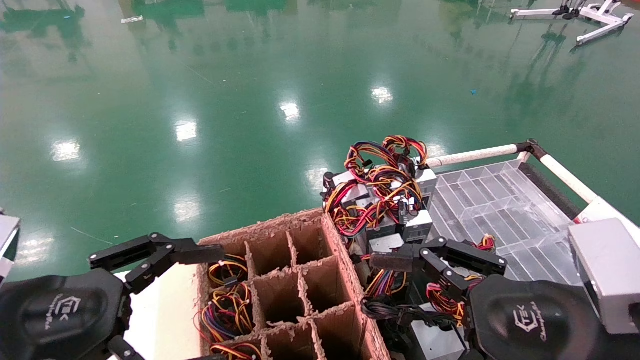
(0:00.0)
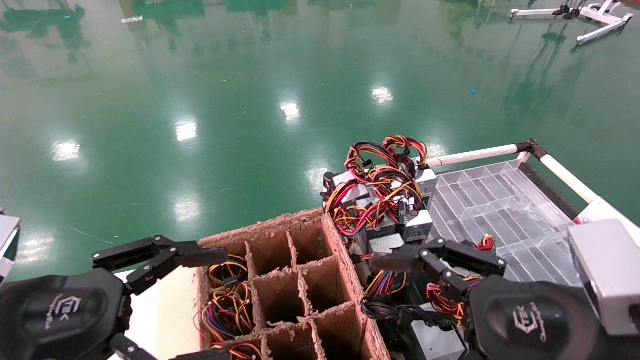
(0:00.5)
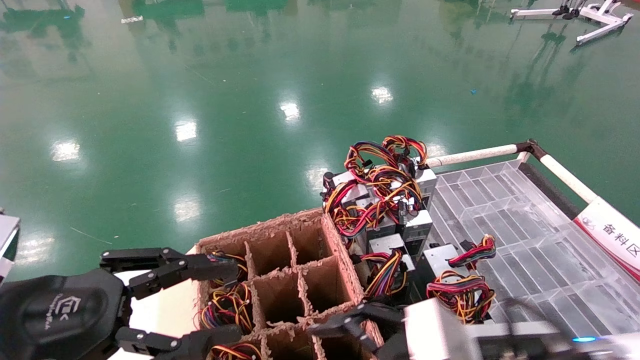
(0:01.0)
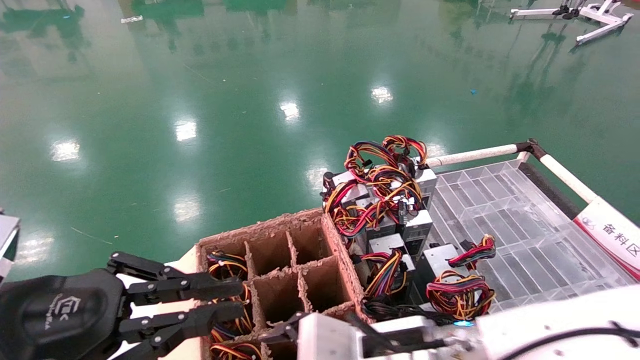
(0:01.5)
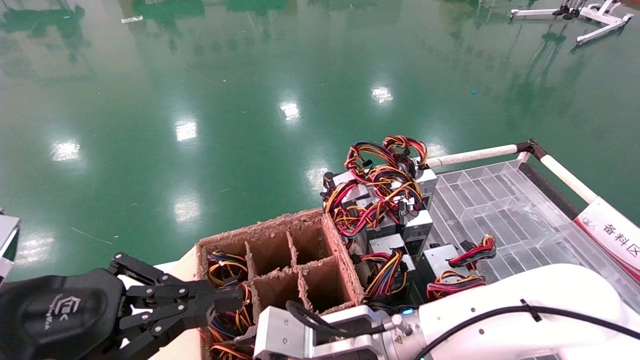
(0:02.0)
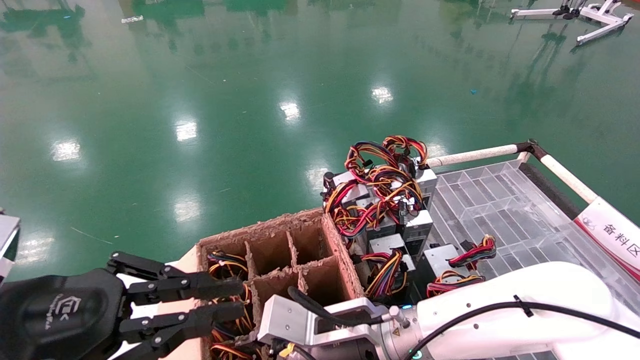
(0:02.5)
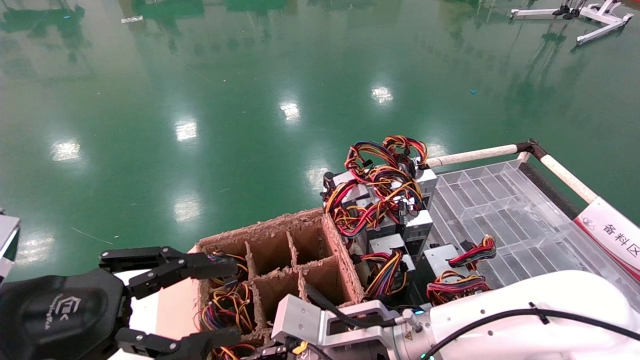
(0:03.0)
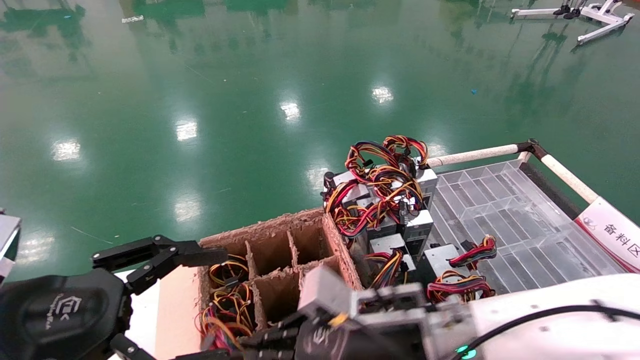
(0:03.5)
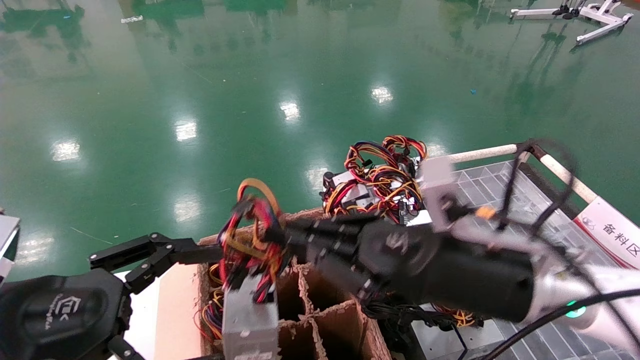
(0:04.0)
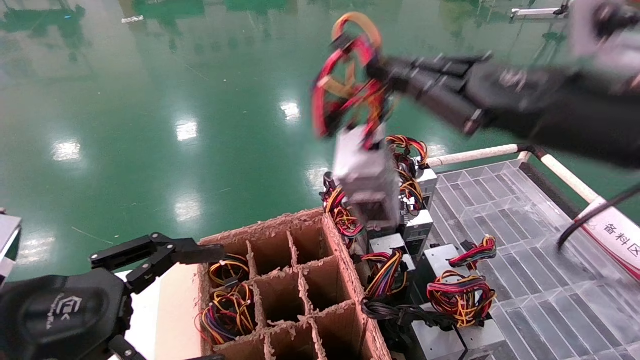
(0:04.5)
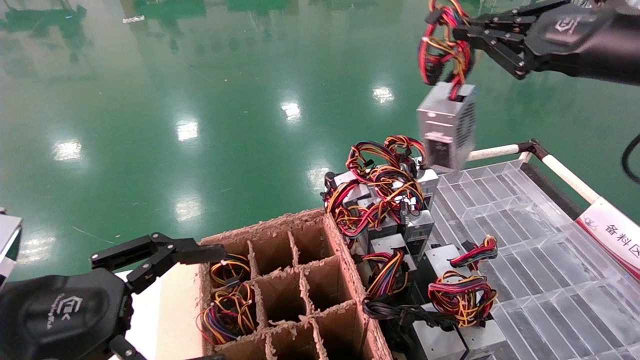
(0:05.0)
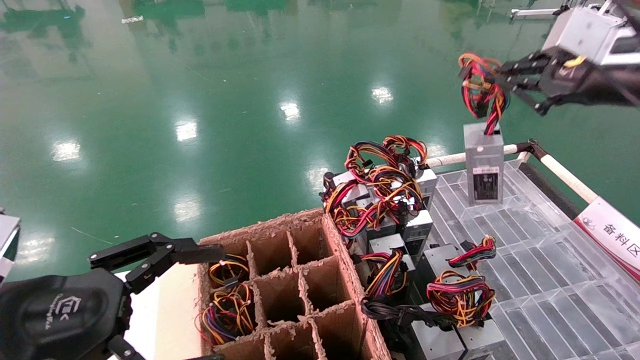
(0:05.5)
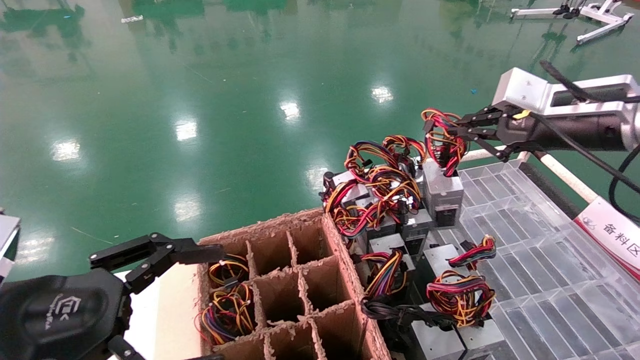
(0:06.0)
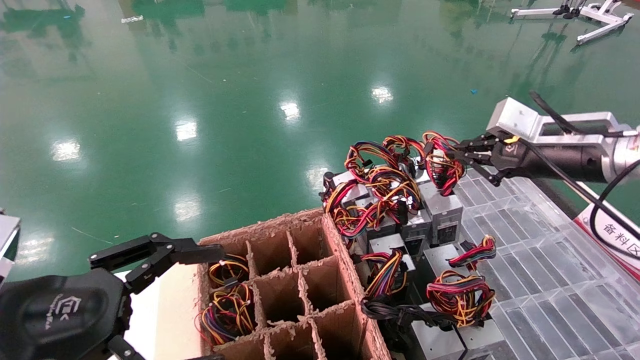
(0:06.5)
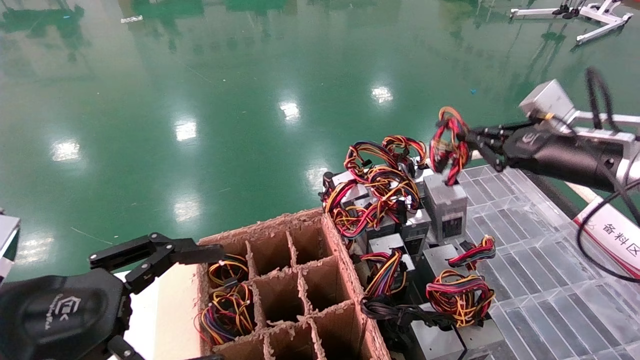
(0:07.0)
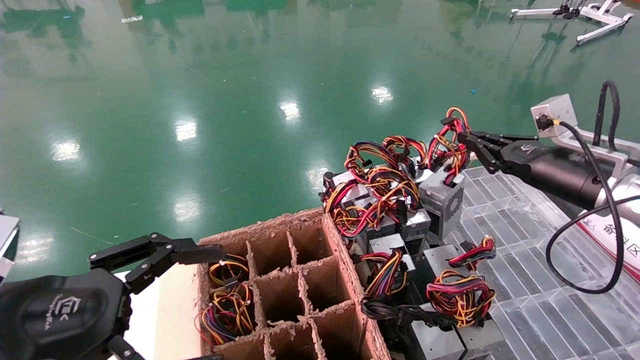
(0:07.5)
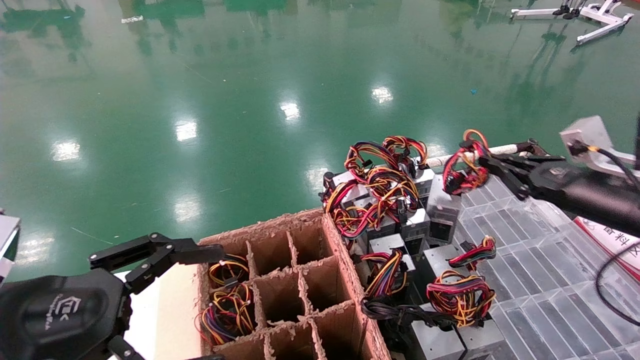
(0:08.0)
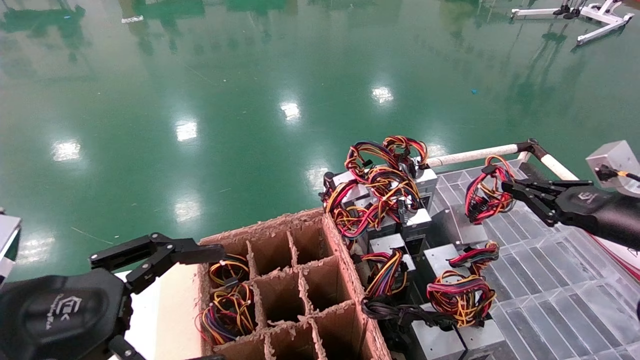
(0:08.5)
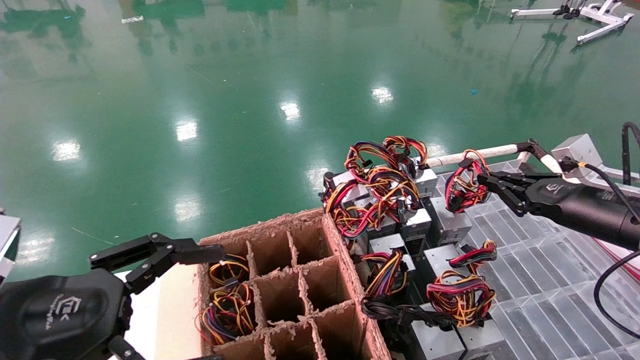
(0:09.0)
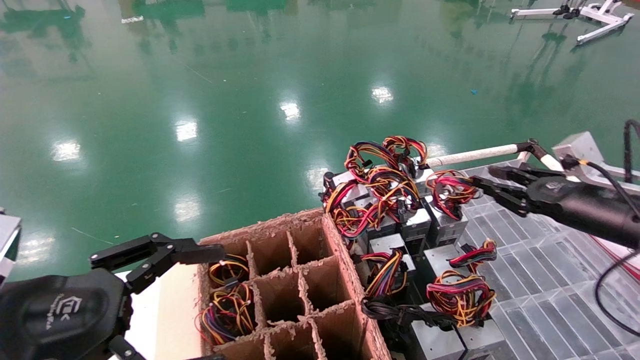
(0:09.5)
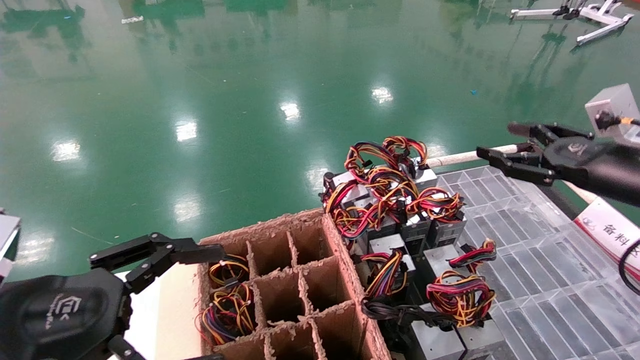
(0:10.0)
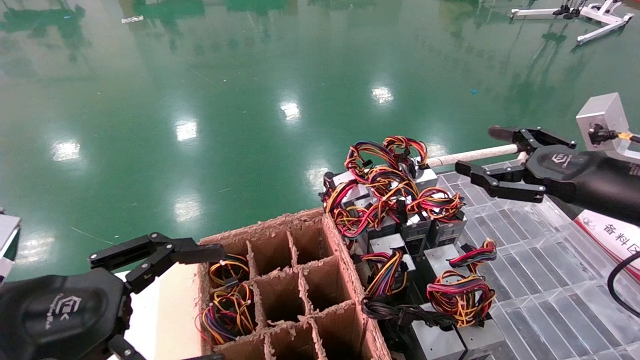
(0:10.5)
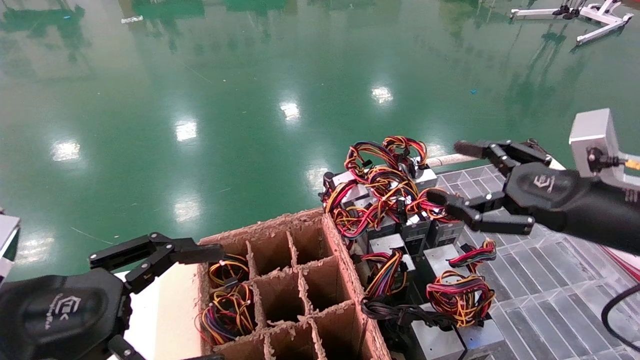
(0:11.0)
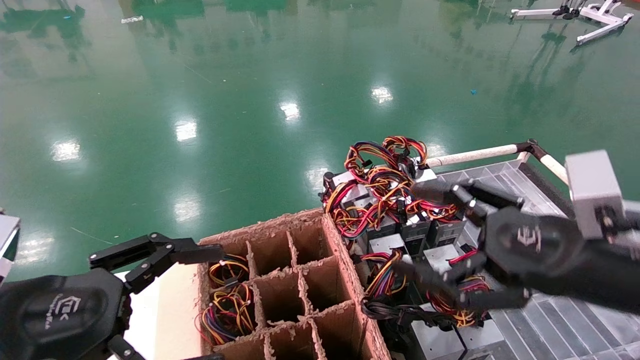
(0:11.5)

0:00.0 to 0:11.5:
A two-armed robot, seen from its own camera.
Step, 0:02.0 to 0:03.0: Grab and lift the power supply from the large box.
Step, 0:03.5 to 0:09.0: Place the power supply on the operating table.
0:00.0 to 0:02.0: The right gripper travels to the left, forward and downward by roughly 25 cm; the left gripper closes up.
0:02.0 to 0:04.0: The left gripper opens; the right gripper moves upward and to the right, about 15 cm, and closes its fingers.
0:04.0 to 0:06.0: The right gripper heads to the right, upward and forward, covering roughly 25 cm.
0:06.0 to 0:07.5: The right gripper moves downward, approximately 10 cm.
0:07.5 to 0:09.5: The right gripper shifts by approximately 5 cm.
0:09.5 to 0:11.5: The right gripper heads to the left and backward, covering roughly 15 cm, and opens up.
